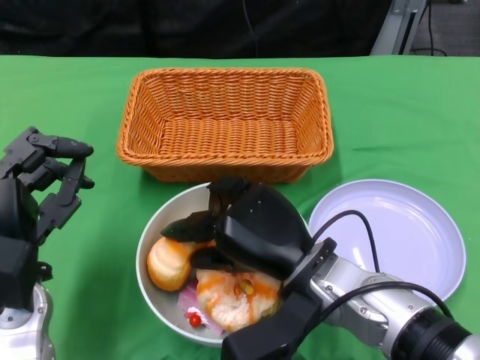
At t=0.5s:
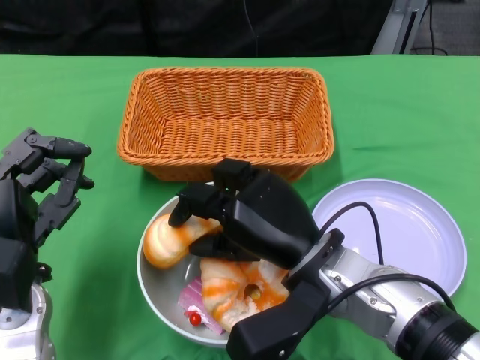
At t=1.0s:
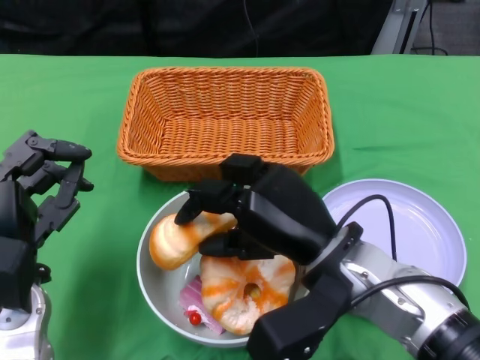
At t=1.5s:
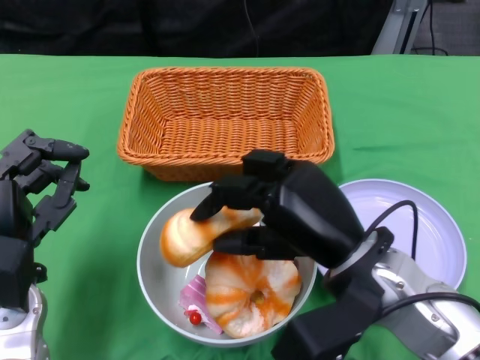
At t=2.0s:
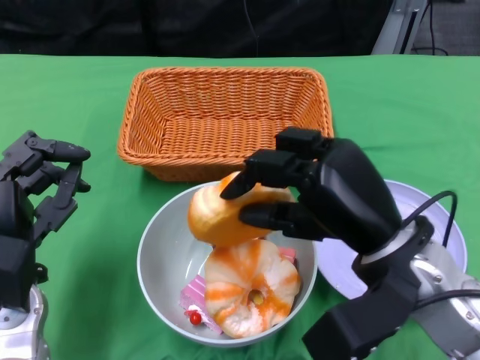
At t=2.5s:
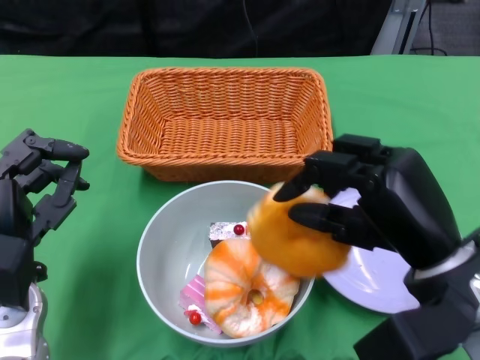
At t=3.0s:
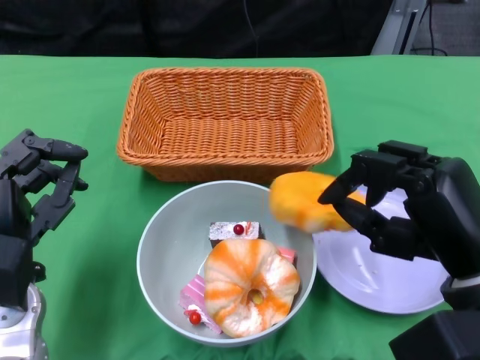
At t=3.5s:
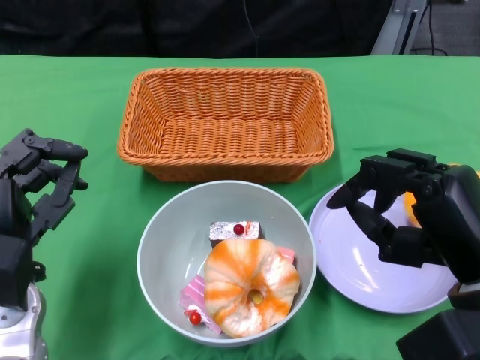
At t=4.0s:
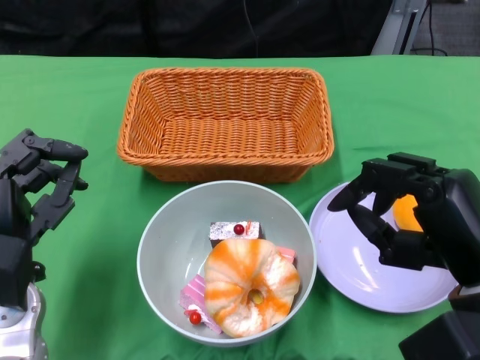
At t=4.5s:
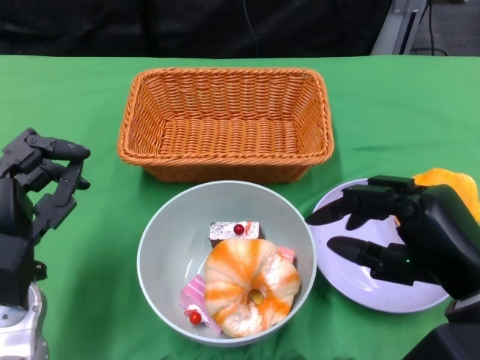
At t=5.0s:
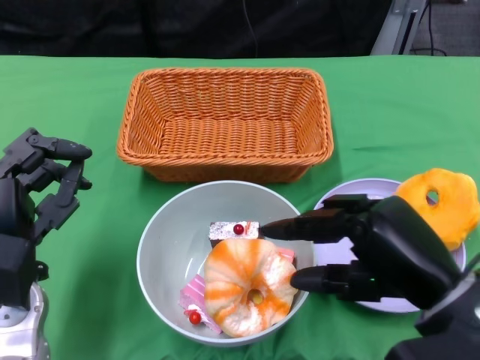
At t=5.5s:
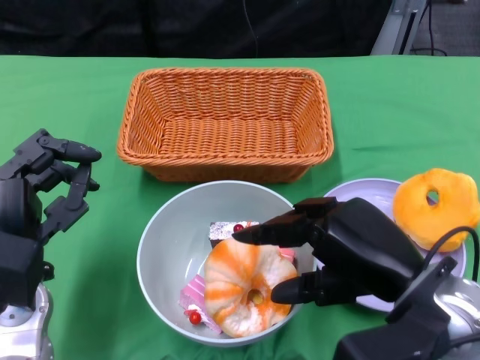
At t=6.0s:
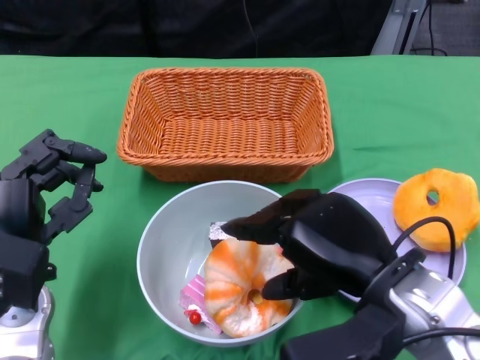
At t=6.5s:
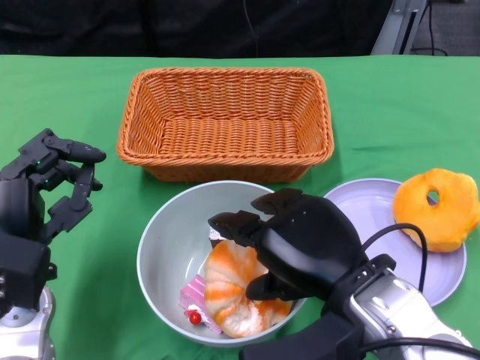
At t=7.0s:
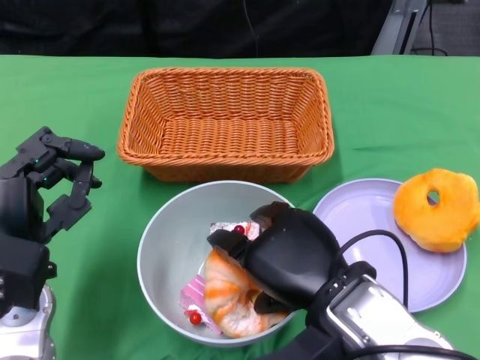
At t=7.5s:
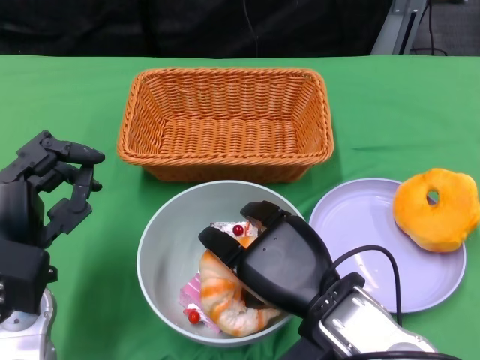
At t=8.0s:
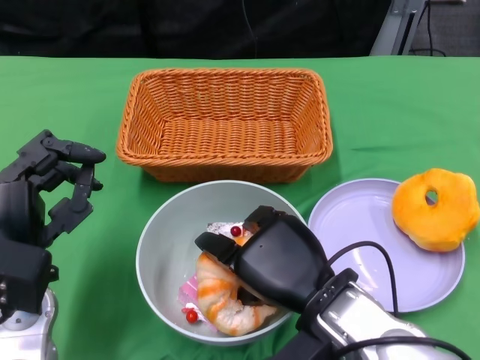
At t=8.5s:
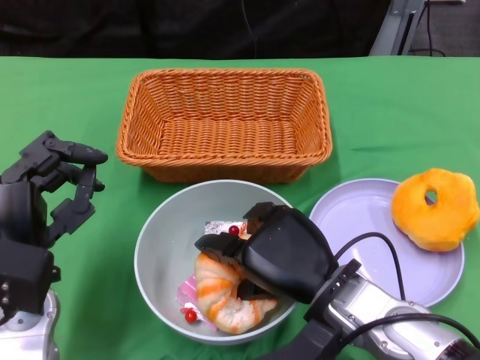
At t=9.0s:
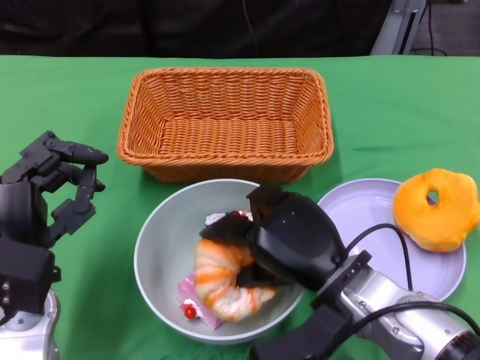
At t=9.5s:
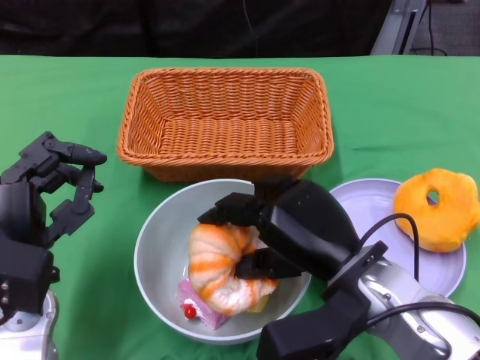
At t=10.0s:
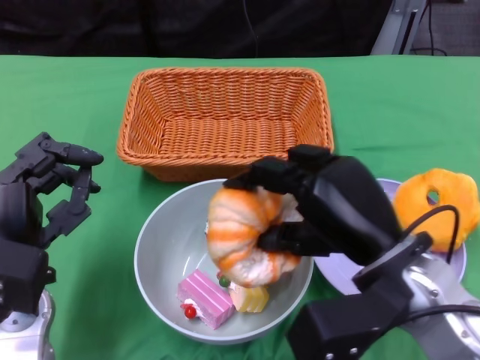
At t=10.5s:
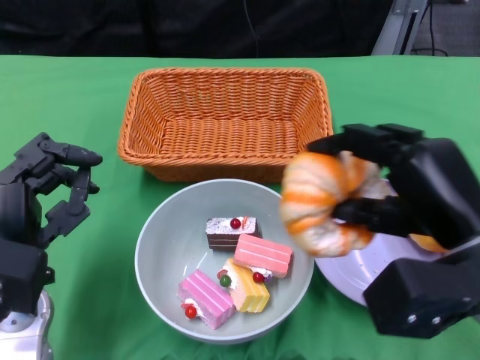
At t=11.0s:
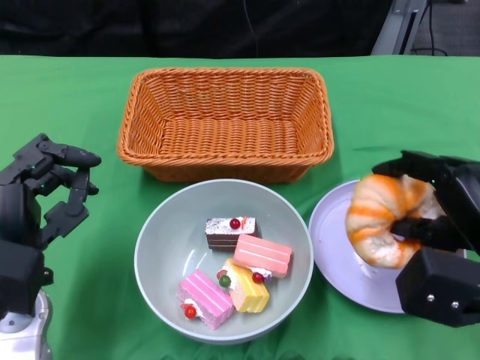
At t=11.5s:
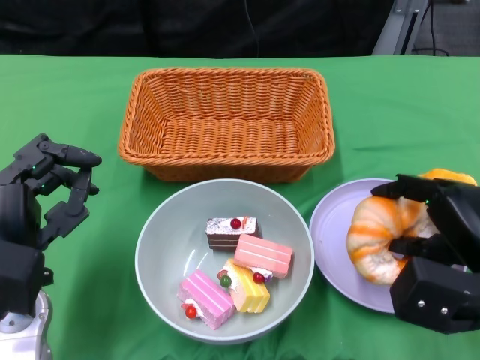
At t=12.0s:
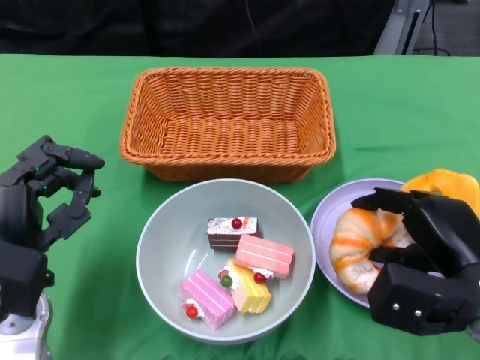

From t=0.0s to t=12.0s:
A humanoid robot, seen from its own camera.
Step, from t=0.0s to t=3.5s: Pick up the bread with the right gripper and place it on the plate.
From t=0.0s to t=2.0s: The right hand goes about 10 cm to the right and upward.
From t=2.0s to t=4.0s: The right hand moves to the right, about 5 cm.
From t=4.0s to t=6.0s: The right hand shifts about 5 cm to the left.
From t=6.0s to t=8.0s: The right hand travels to the left and downward by some 5 cm.
From t=8.0s to t=10.0s: The right hand goes roughly 5 cm to the right.
From t=10.0s to t=12.0s: The right hand heads to the right and downward, covering some 10 cm.

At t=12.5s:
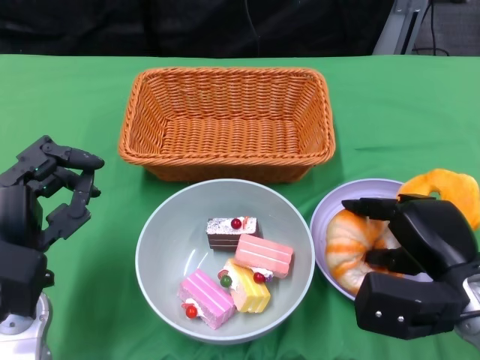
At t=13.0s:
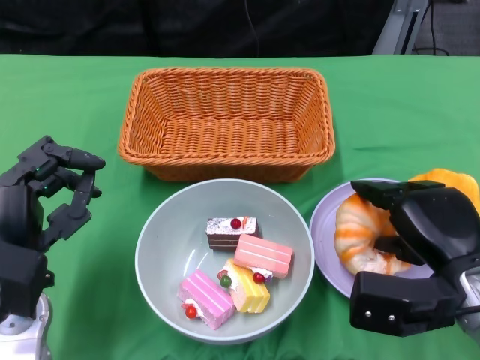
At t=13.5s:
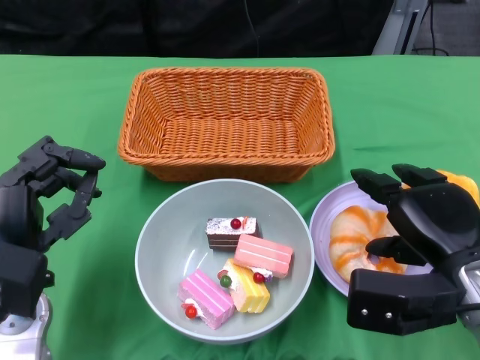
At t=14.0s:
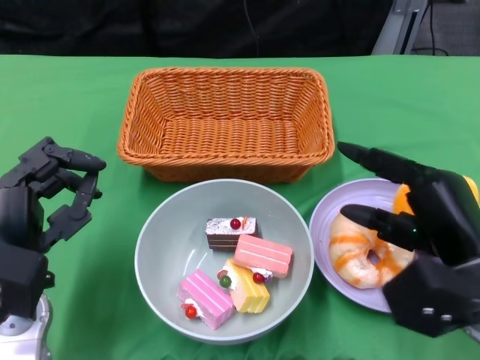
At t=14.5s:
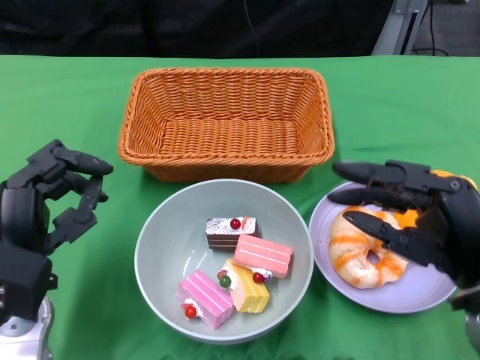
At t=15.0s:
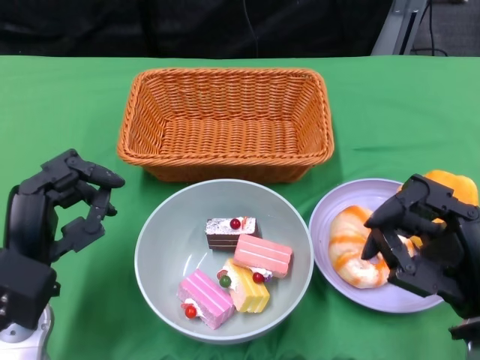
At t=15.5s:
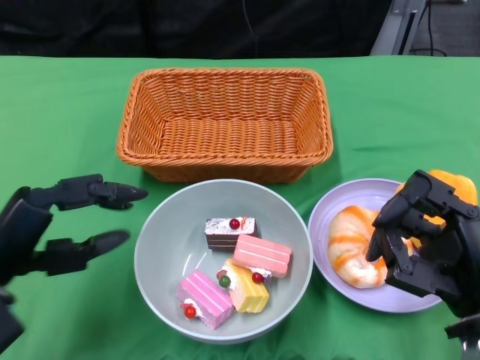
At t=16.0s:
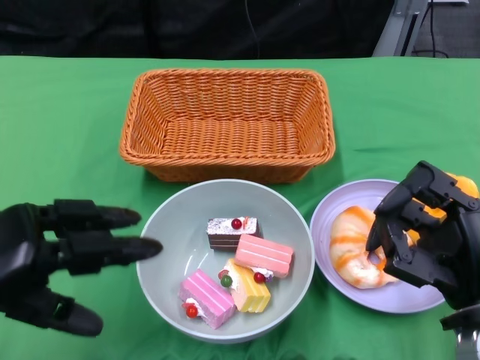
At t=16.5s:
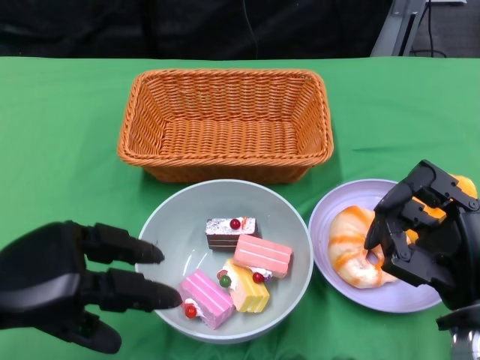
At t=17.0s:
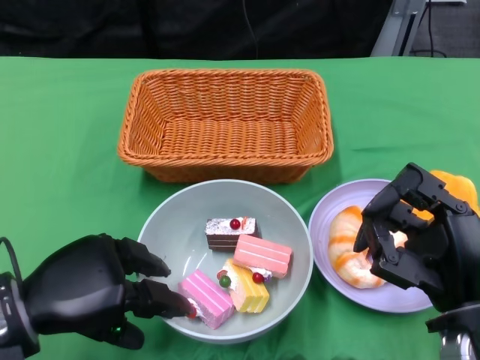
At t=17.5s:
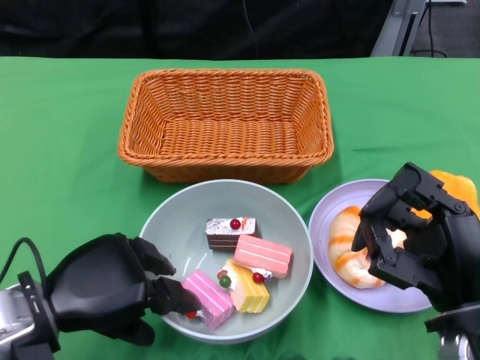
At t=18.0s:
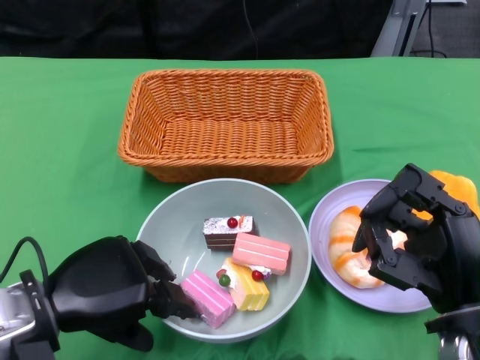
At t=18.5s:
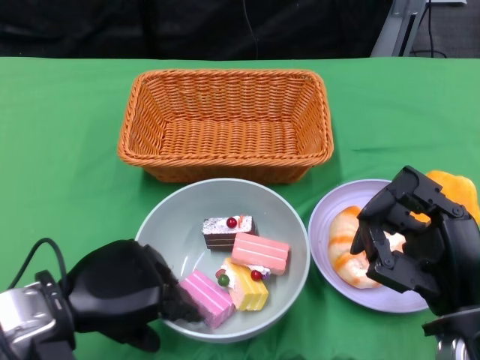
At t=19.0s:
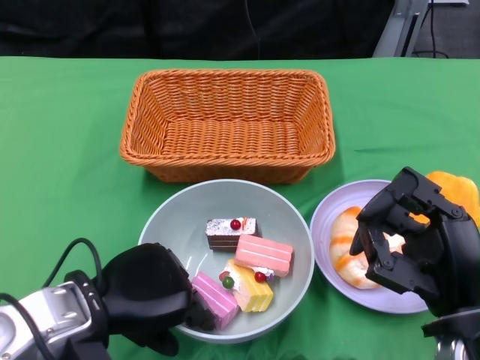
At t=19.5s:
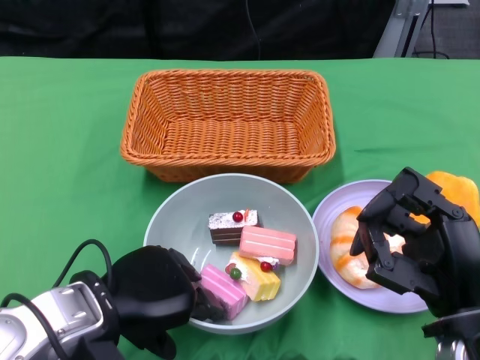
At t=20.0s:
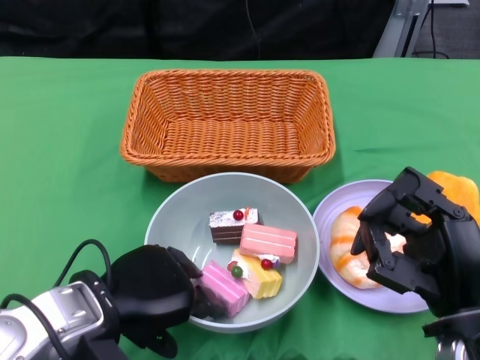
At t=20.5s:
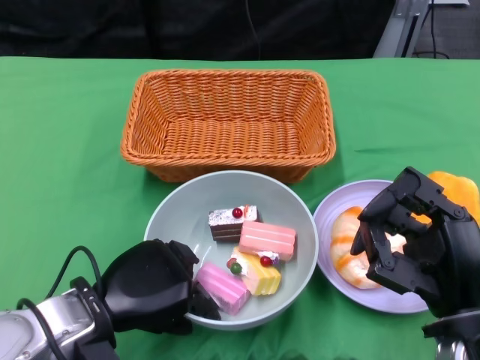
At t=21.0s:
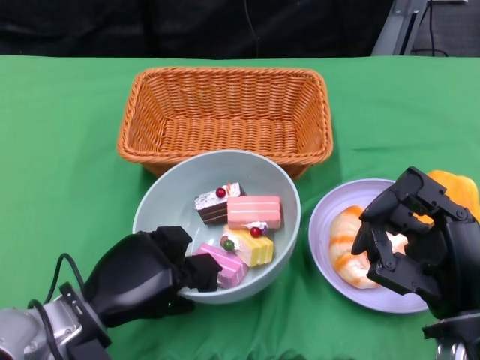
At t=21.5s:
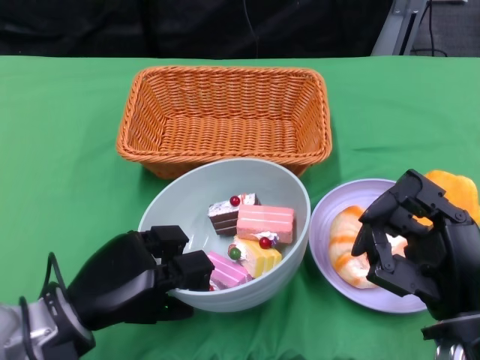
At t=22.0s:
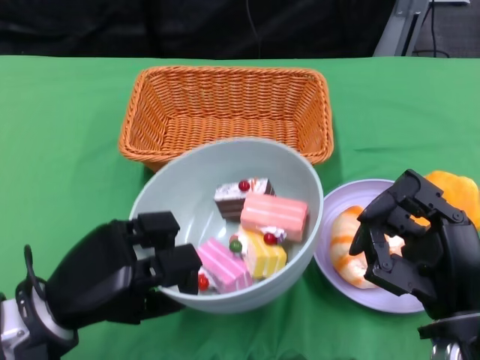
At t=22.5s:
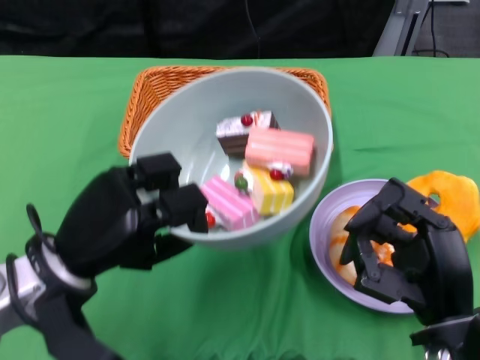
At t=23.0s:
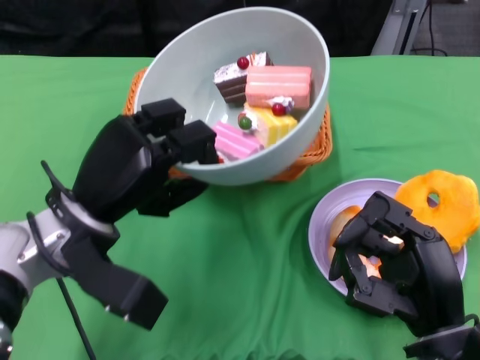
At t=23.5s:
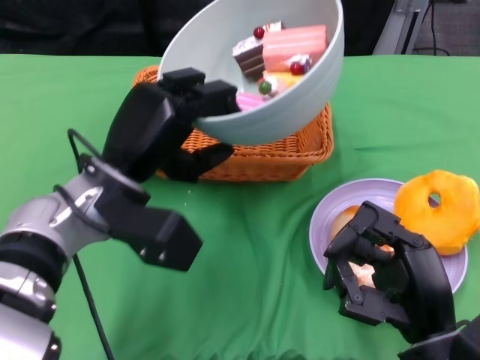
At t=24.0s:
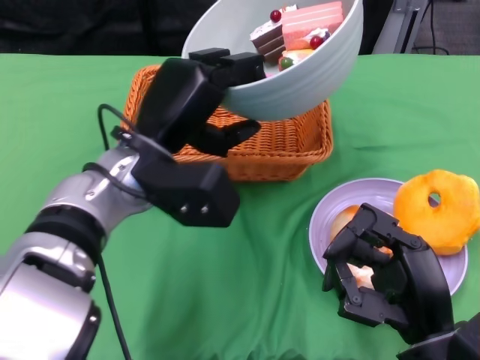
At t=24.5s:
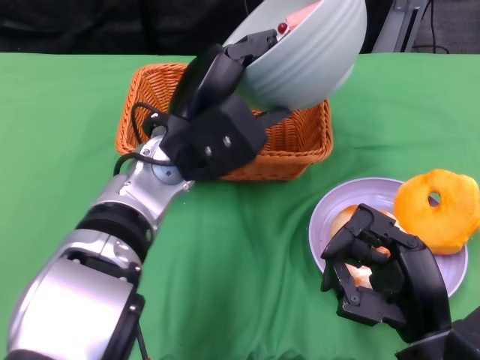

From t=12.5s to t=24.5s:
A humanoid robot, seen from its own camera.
Step, from t=14.0s to t=20.5s: Grasp the bowl with the left gripper.
From t=12.5s to t=14.5s: The right hand shifts some 5 cm upward.
From t=14.5s to t=16.5s: The left hand is displaced upward by about 5 cm.
From t=16.5s to t=18.5s: The left hand heads to the right, covering some 5 cm.
From t=18.5s to t=20.5s: The hands make only small movements.
From t=22.5s to t=24.5s: The left hand goes approximately 15 cm to the right, forward and upward.

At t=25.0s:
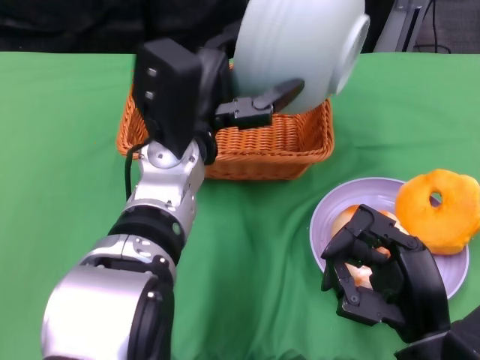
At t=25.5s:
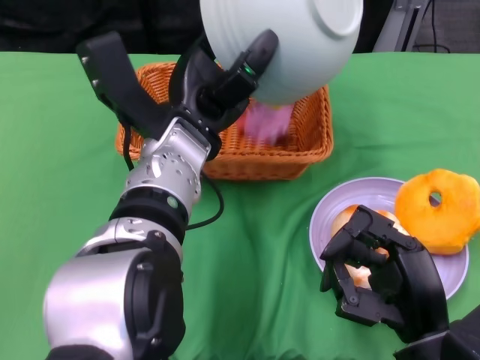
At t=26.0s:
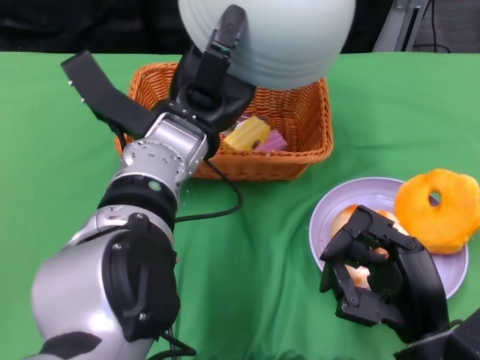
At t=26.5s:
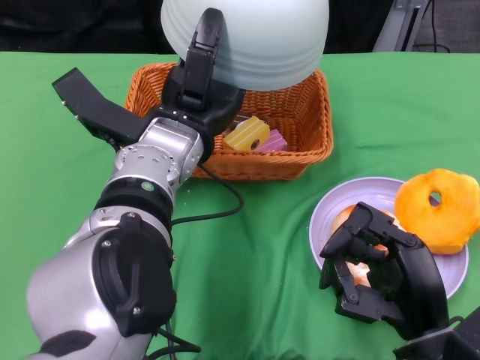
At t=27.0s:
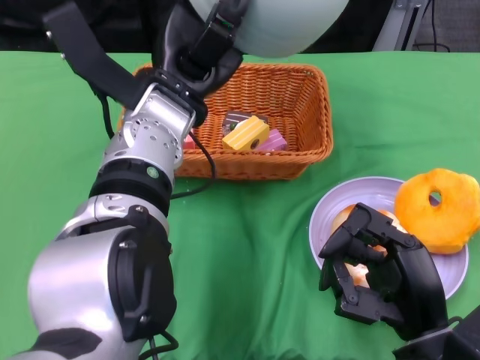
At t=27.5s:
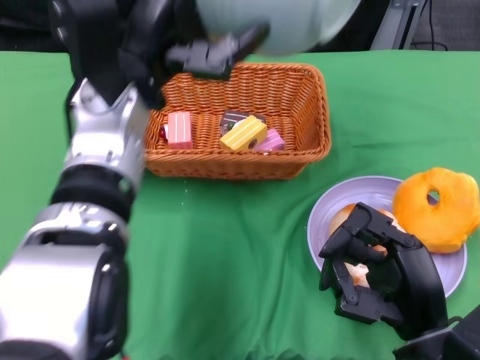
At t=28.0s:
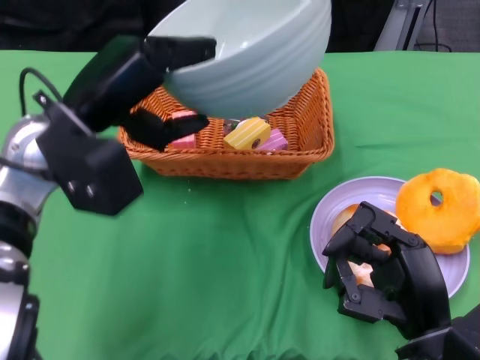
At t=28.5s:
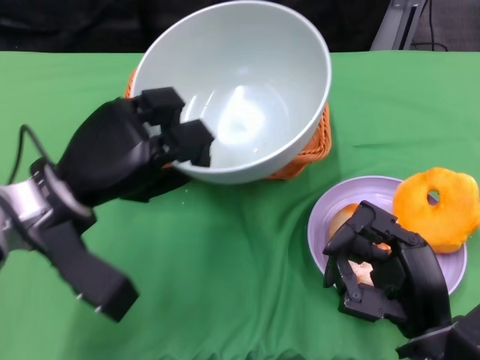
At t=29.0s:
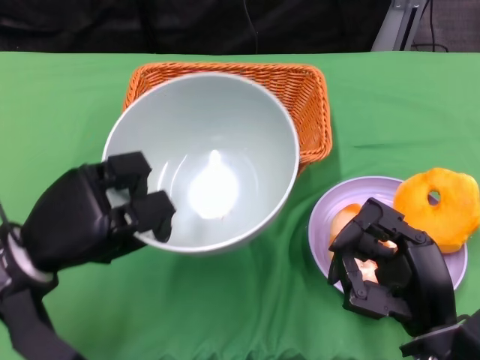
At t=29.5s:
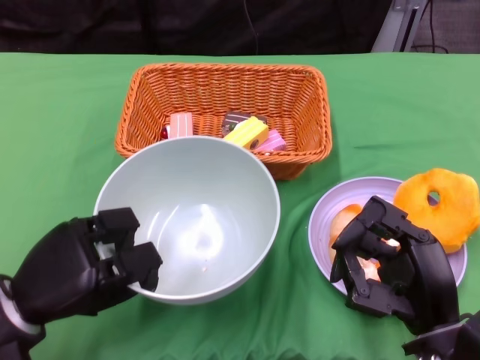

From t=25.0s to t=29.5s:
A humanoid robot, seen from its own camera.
From t=27.0s to t=29.5s: The left hand is displaced to the left, downward and backward by some 25 cm.
